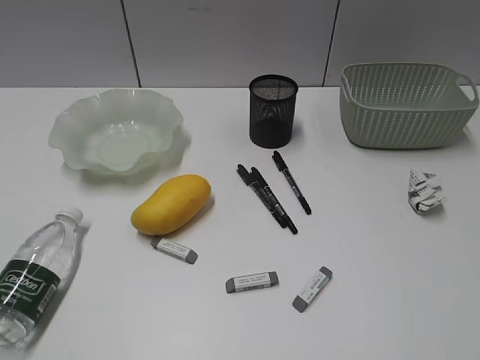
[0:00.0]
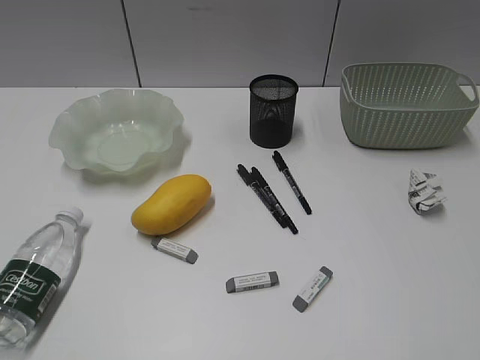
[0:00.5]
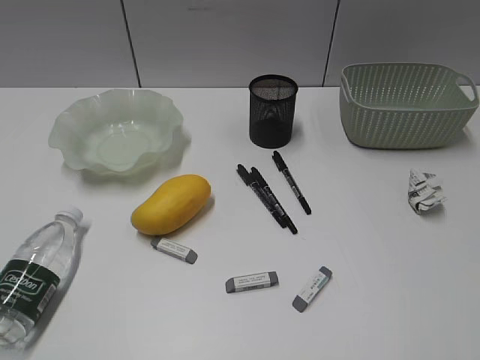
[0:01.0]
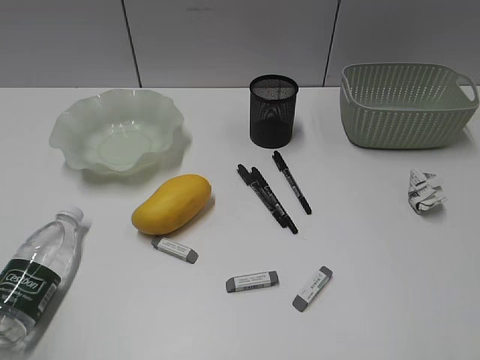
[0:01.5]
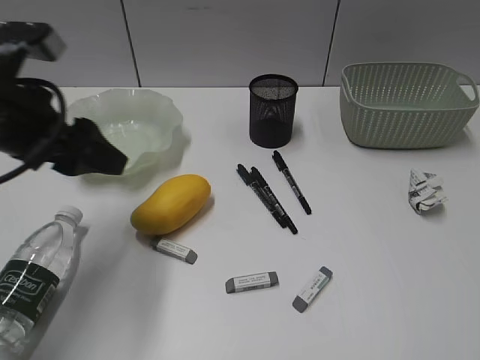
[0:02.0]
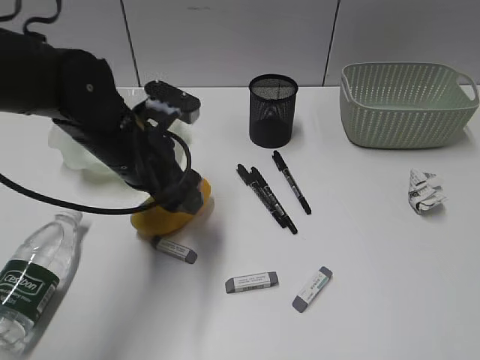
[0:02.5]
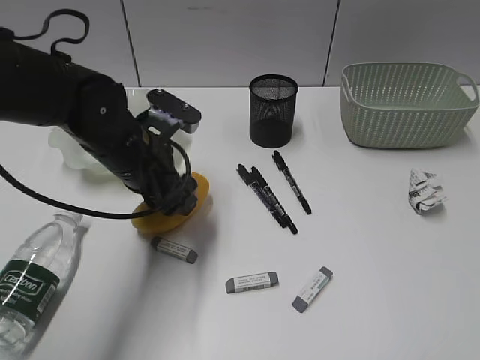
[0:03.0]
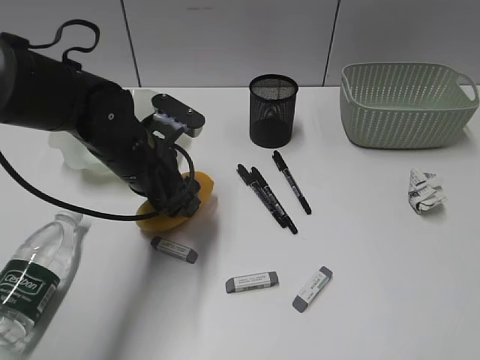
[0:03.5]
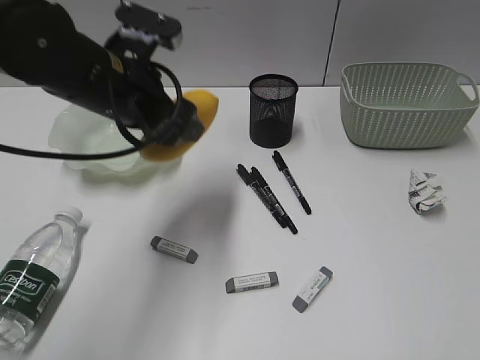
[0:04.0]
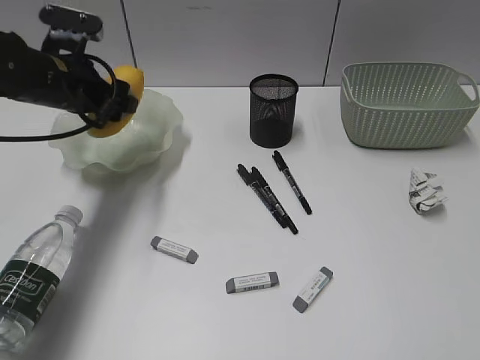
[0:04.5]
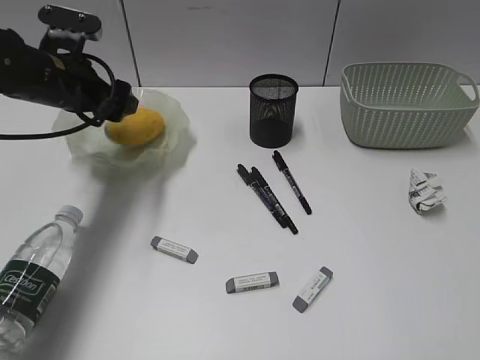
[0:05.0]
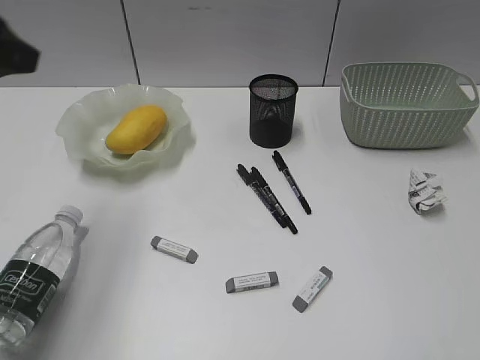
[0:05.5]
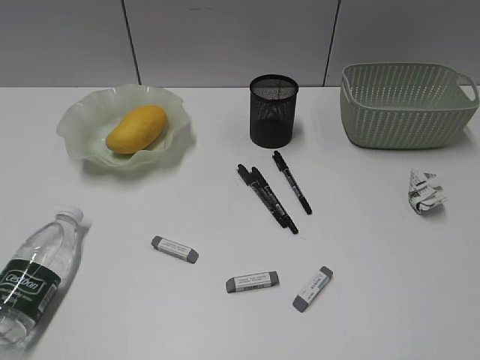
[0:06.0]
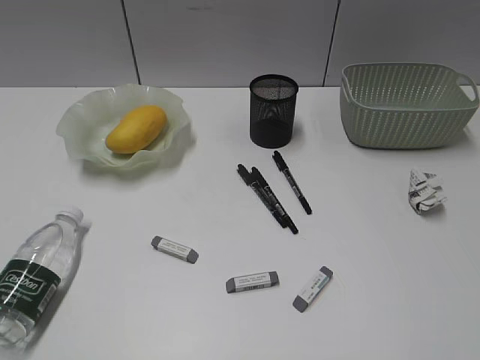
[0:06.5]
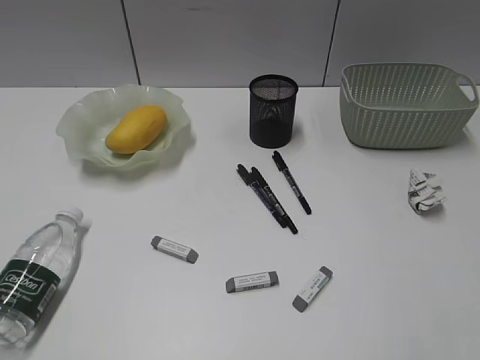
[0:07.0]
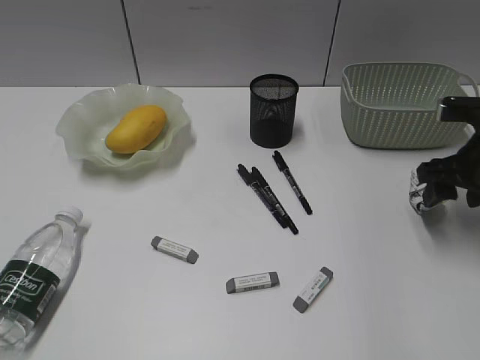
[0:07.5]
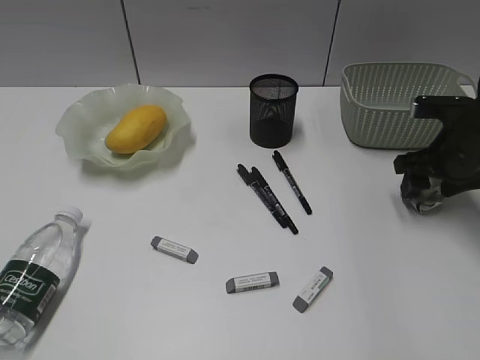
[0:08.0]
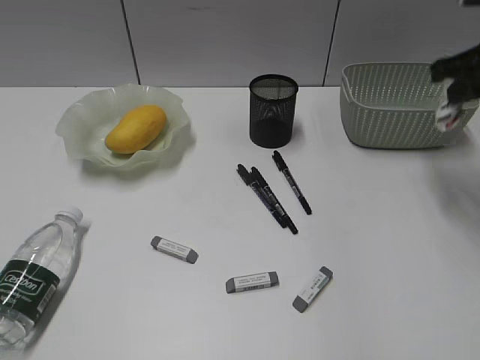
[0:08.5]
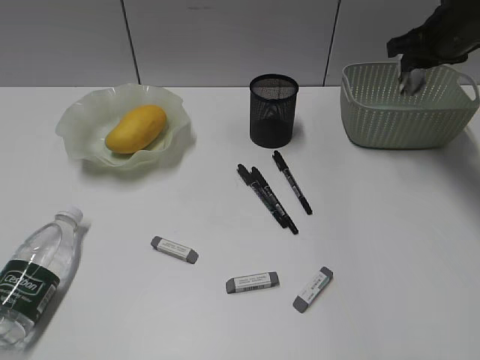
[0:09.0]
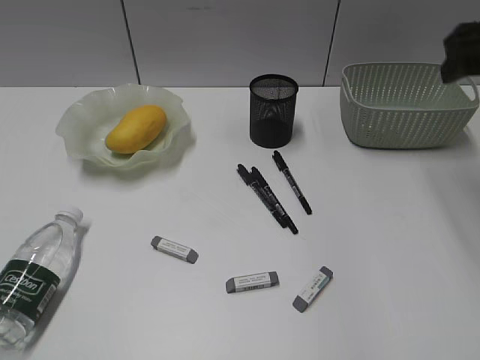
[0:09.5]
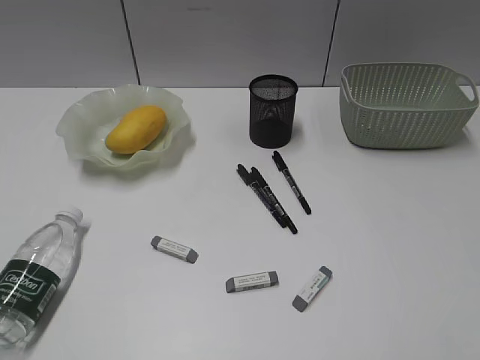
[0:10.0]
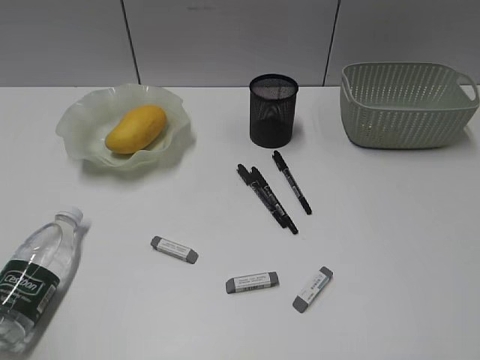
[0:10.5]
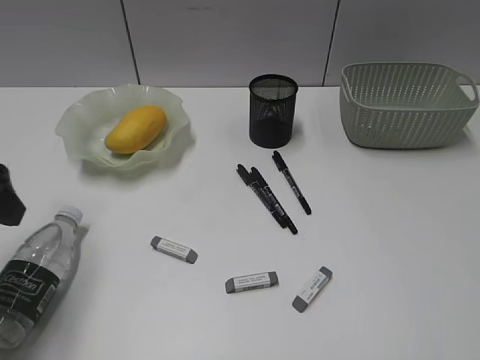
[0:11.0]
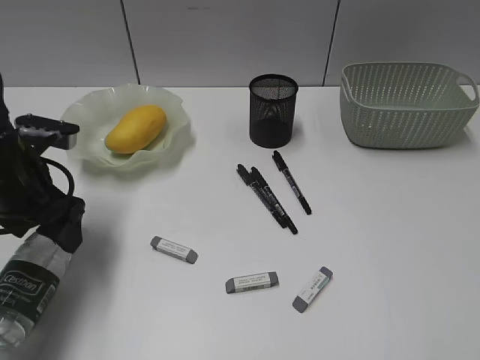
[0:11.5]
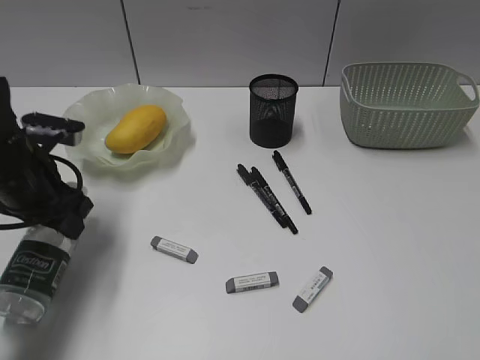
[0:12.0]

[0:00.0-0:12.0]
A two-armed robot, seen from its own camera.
Step, 0:01.5 to 0:03.5: Grasp the mango with left gripper.
Step, 0:04.0 to 0:05.0: Place the mango in the plate with left gripper.
Step, 0:05.5 to 0:08.0: Grasp the waste paper with right gripper.
Step, 0:08.5 to 0:09.0: Place the waste paper in the basket with right gripper.
0:02.0 to 0:04.0: The left gripper moves to the right and forward, about 10 cm, and reaches about 10 cm downward, then returns.
0:04.0 to 0:06.0: The left gripper heads backward and to the left, covering approximately 35 cm, and closes.
0:06.0 to 0:08.0: The right gripper moves forward and downward, some 40 cm, and opens up.
0:08.0 to 0:10.0: The right gripper is displaced backward and upward by some 30 cm, and closes, then reopens.
0:10.0 to 0:12.0: The left gripper heads forward and downward, covering approximately 35 cm, and opens, then closes once more.

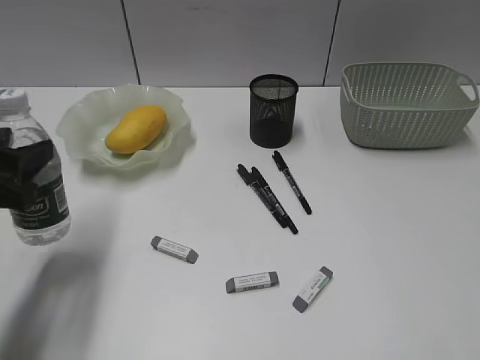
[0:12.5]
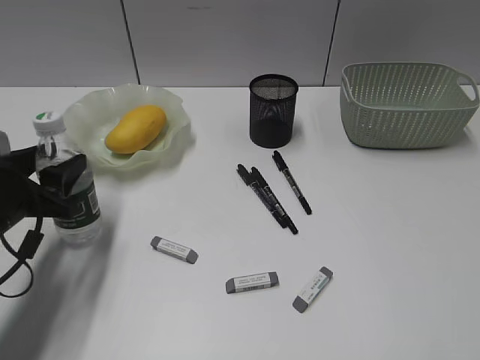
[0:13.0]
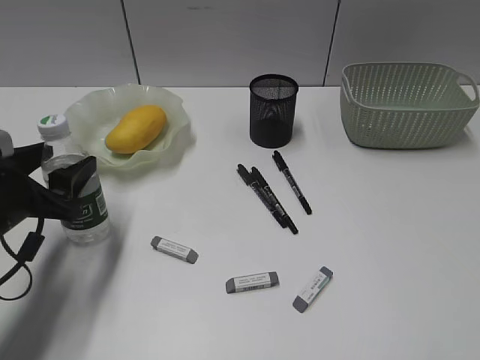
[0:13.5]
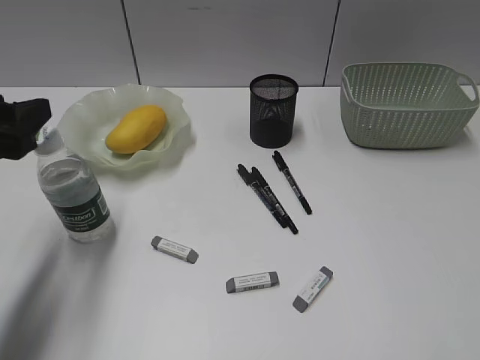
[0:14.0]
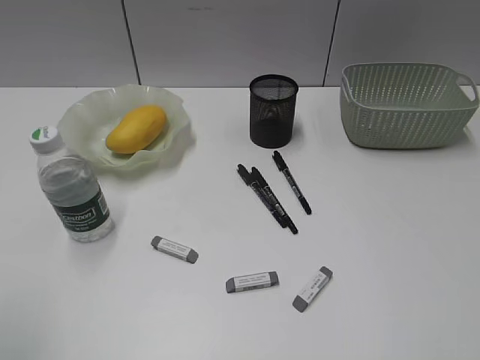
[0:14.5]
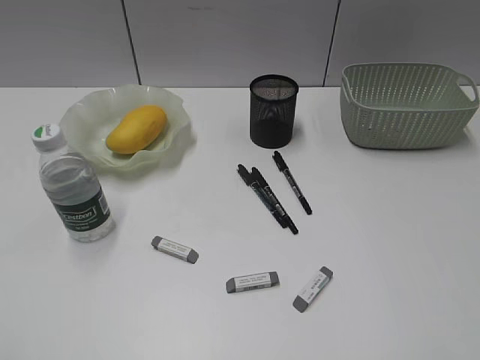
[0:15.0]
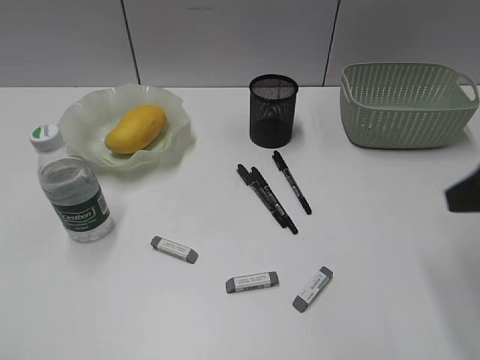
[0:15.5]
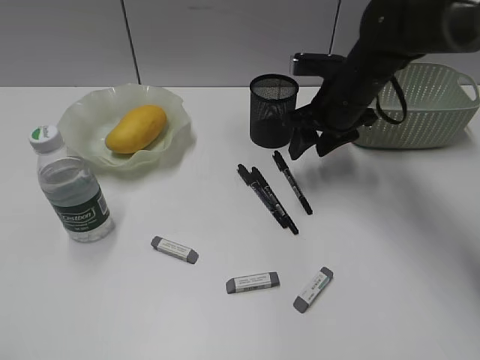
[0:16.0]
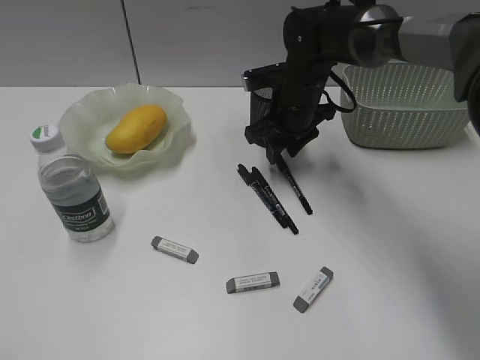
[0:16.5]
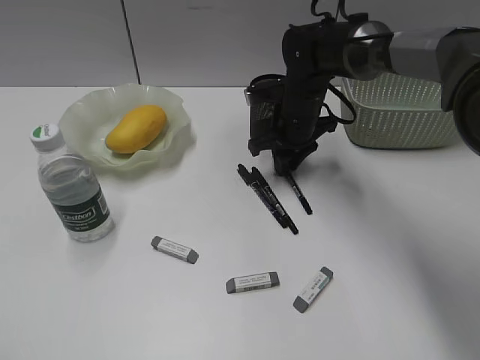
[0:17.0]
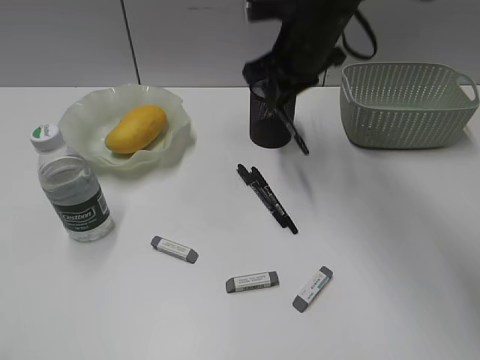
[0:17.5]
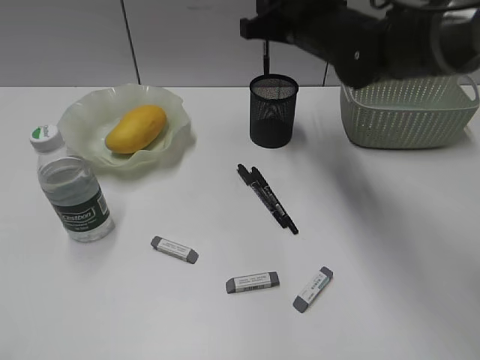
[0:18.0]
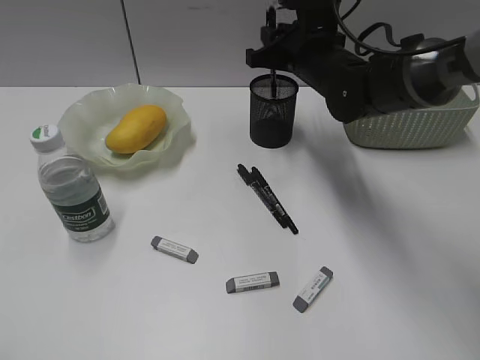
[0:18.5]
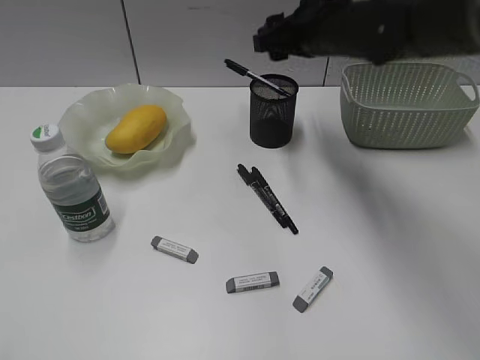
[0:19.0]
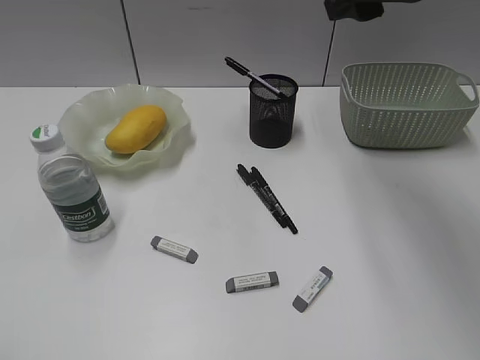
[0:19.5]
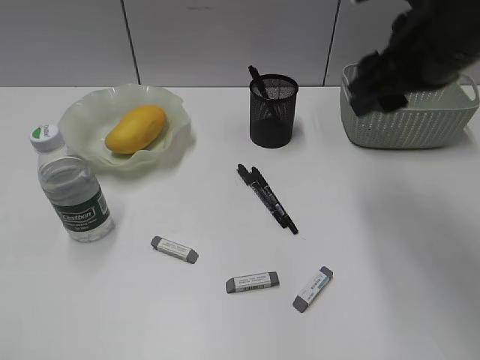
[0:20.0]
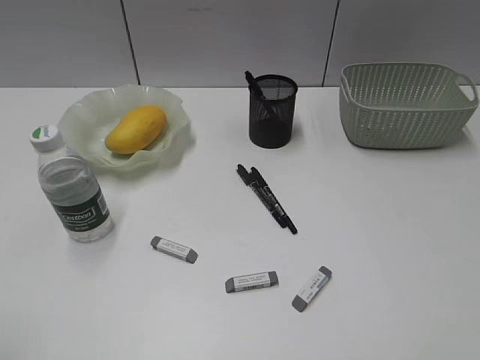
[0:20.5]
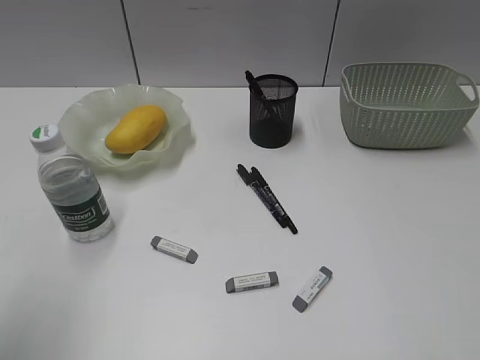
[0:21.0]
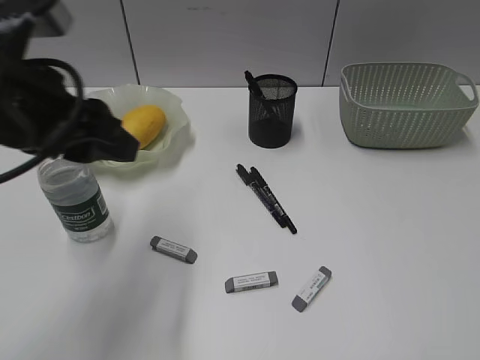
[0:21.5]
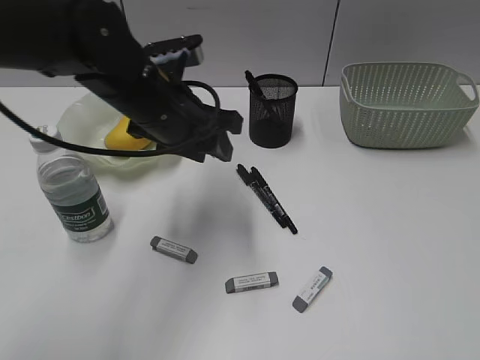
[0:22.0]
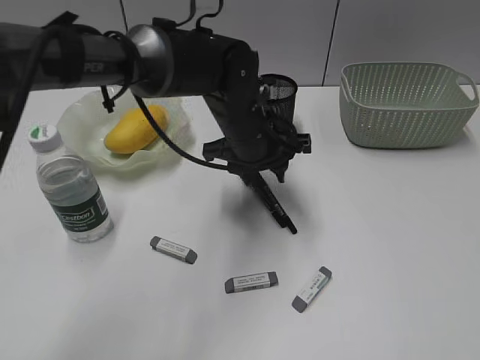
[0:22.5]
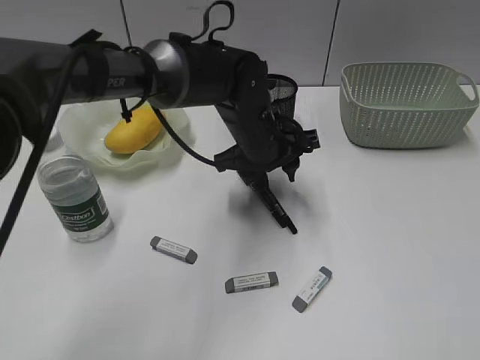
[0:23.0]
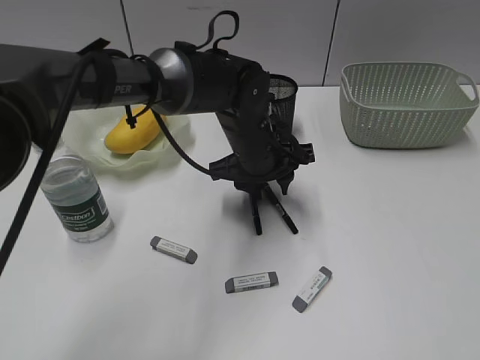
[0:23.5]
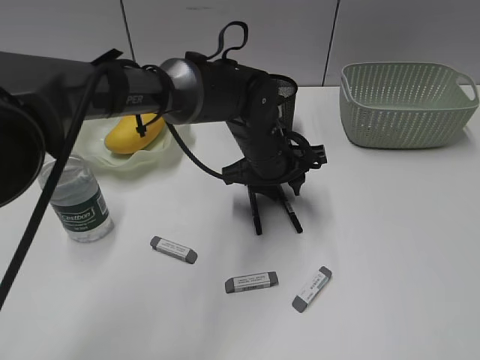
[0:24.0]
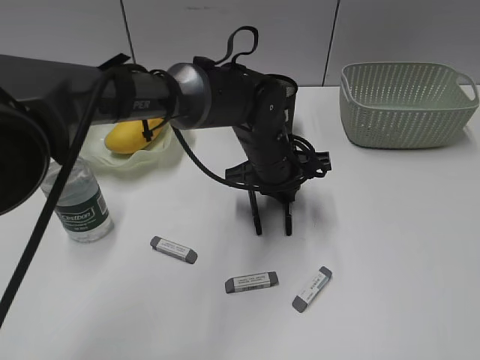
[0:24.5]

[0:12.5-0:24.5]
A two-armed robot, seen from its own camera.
Step, 0:12.5 to 0:13.5: Stand the bottle with left gripper.
Step, 0:14.0 to 0:17.0: Grasp the black pen with right gripper.
0:12.5 to 0:14.5: The left gripper is displaced backward and upward by some 15 cm.
0:14.5 to 0:16.5: The right gripper travels forward and to the left by some 50 cm. The left gripper is displaced backward by about 10 cm.
0:16.5 to 0:18.5: The right gripper heads upward, covering about 5 cm.
0:18.5 to 0:20.5: The right gripper goes some 40 cm backward and to the right, and opens its fingers.
0:20.5 to 0:22.5: The right gripper moves backward, approximately 10 cm, while the left gripper is displaced forward, to the right and downward by about 50 cm.
0:22.5 to 0:24.5: The left gripper closes its fingers.

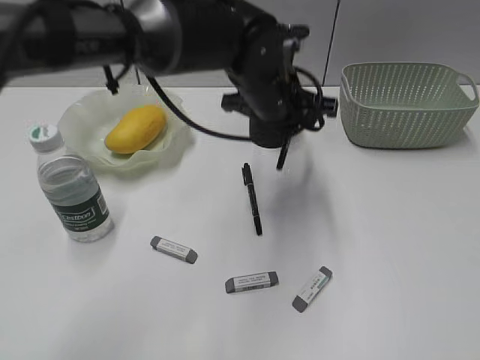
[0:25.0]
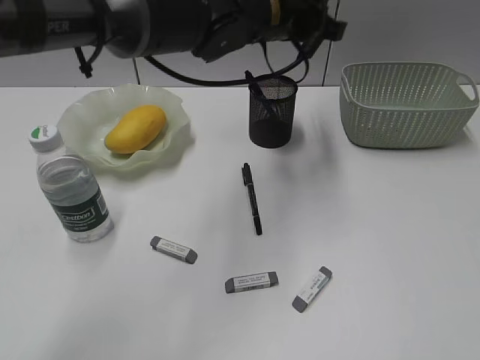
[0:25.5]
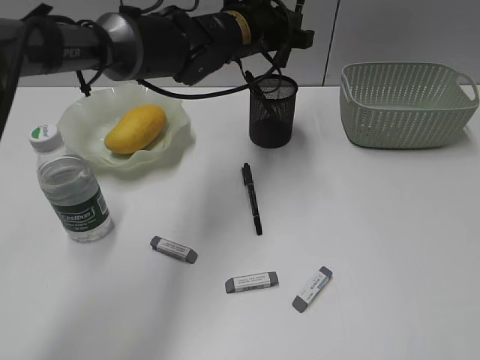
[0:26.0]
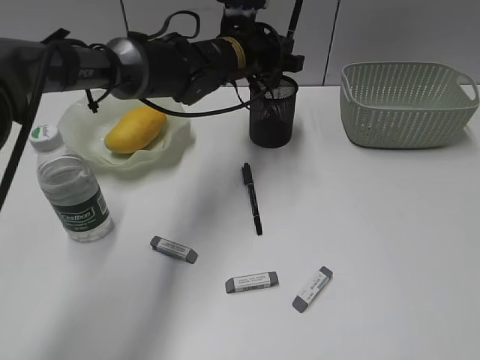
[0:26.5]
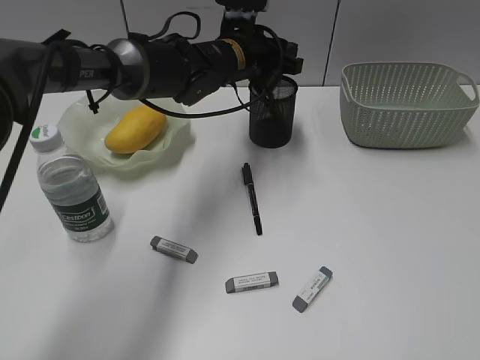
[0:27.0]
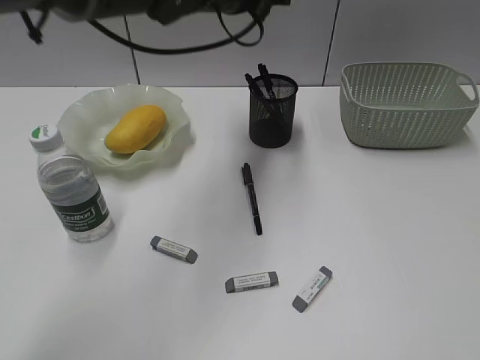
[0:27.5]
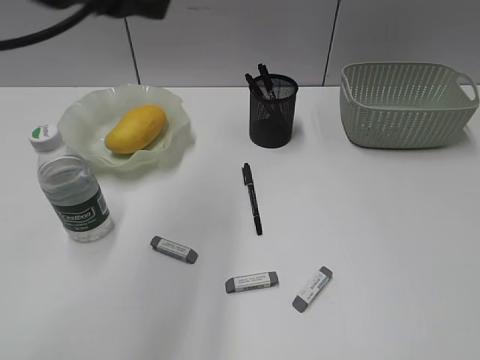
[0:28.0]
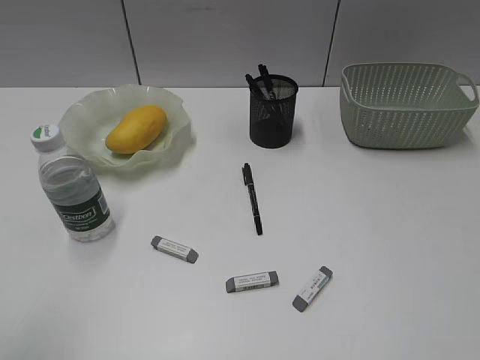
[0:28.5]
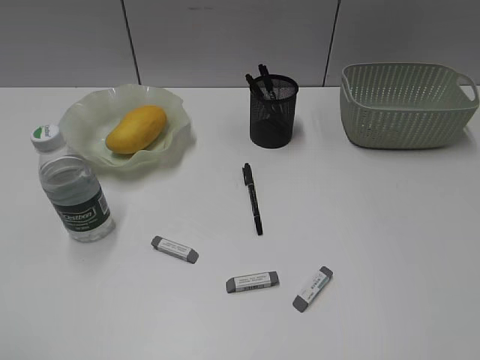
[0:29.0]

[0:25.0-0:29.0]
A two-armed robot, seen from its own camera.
Step, 0:25.0 to 0:27.0: Place the black pen in pen holder with left gripper.
0:25.0 to 0:27.0: The left gripper is displaced forward by about 10 cm, and opens up.
0:27.0 to 0:29.0: The left gripper shifts some 60 cm backward and to the left.
